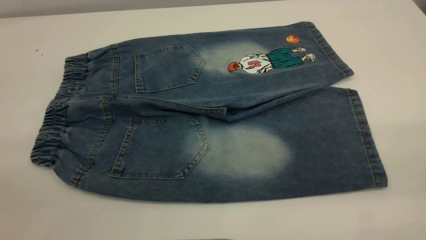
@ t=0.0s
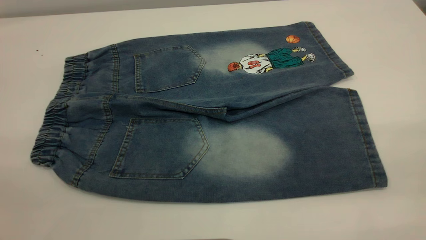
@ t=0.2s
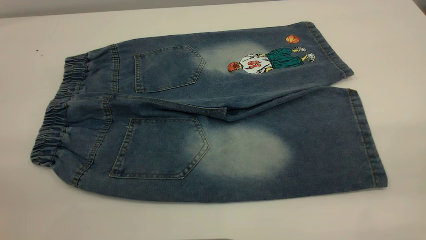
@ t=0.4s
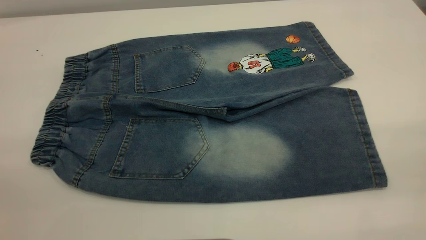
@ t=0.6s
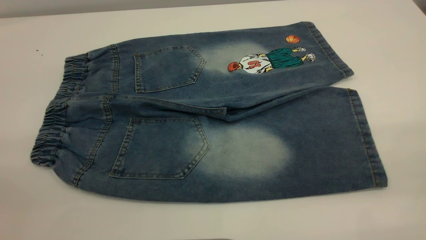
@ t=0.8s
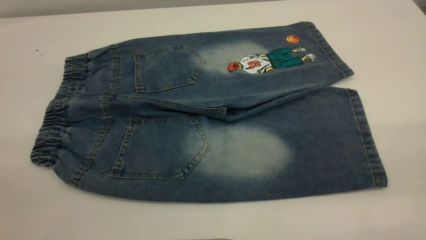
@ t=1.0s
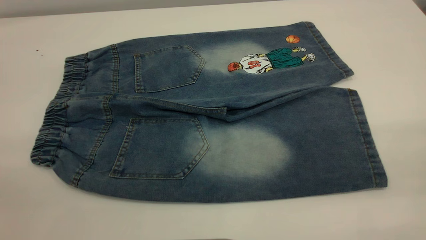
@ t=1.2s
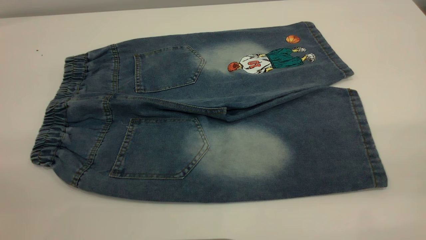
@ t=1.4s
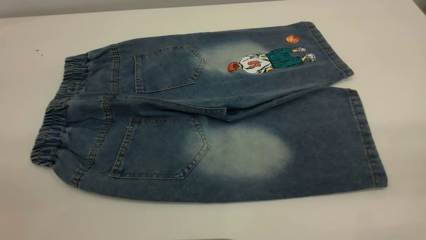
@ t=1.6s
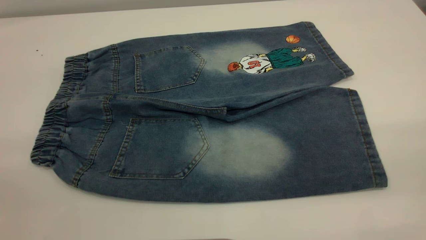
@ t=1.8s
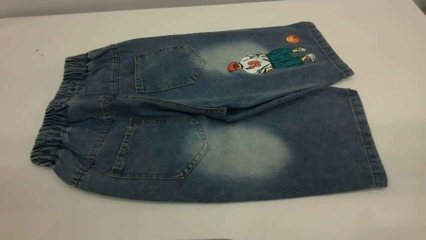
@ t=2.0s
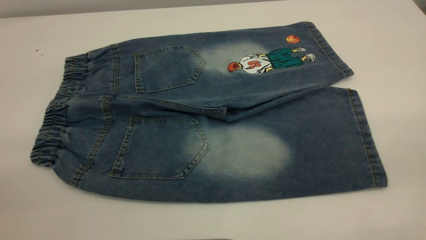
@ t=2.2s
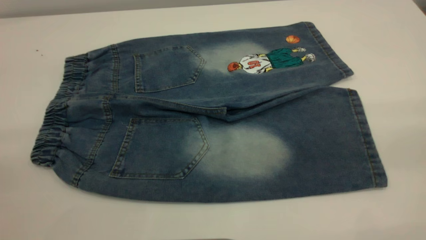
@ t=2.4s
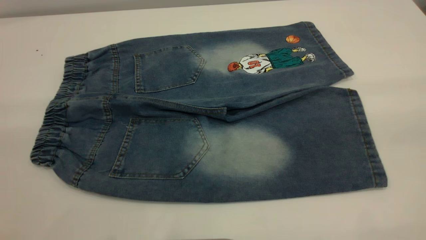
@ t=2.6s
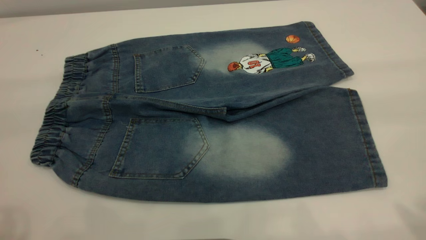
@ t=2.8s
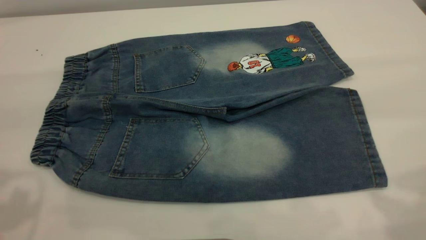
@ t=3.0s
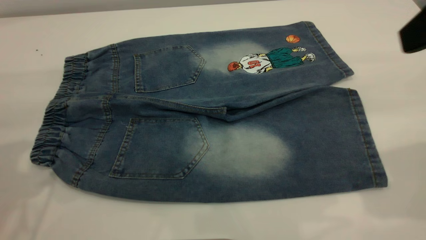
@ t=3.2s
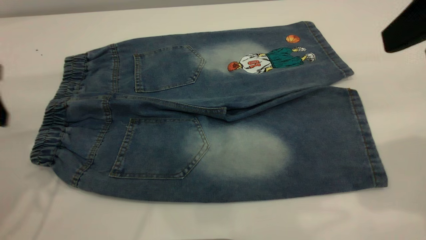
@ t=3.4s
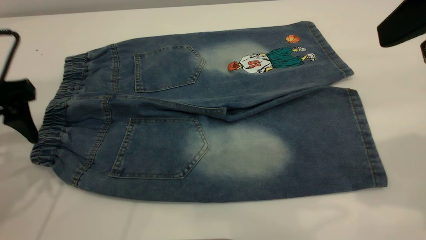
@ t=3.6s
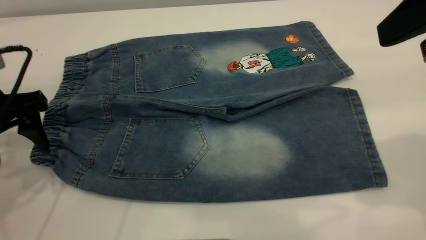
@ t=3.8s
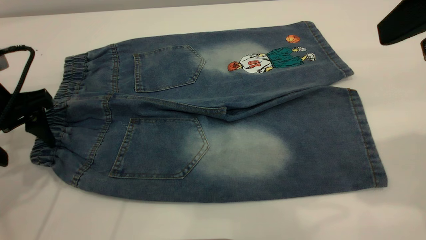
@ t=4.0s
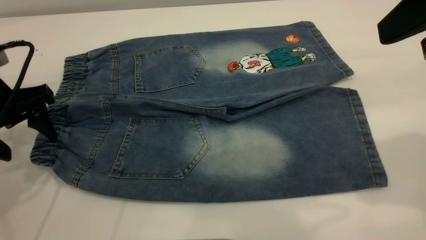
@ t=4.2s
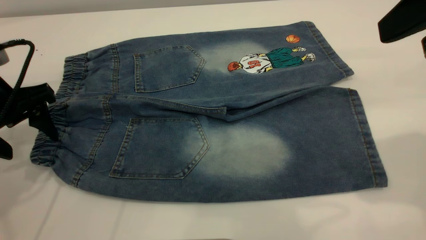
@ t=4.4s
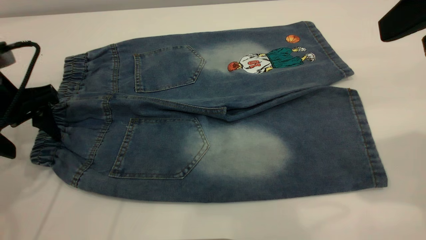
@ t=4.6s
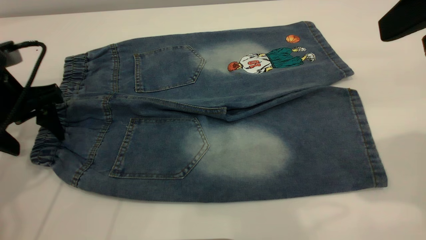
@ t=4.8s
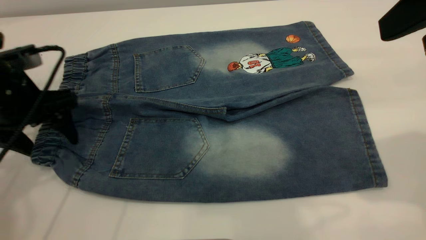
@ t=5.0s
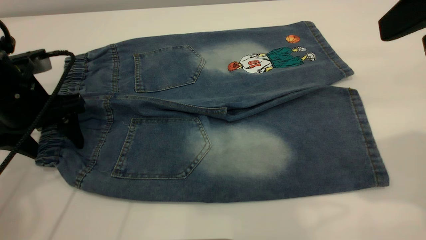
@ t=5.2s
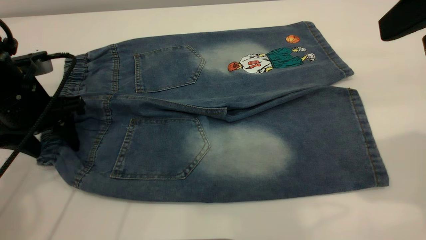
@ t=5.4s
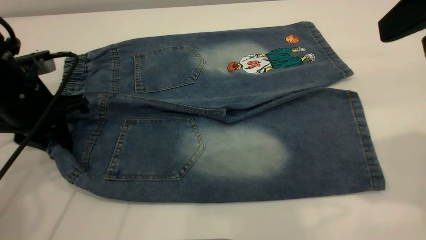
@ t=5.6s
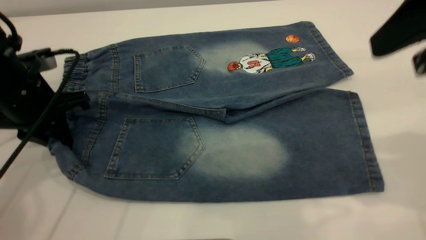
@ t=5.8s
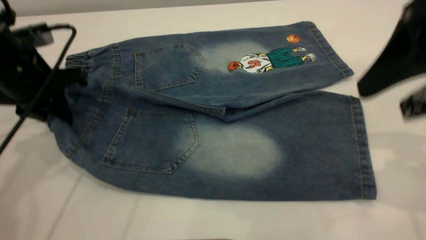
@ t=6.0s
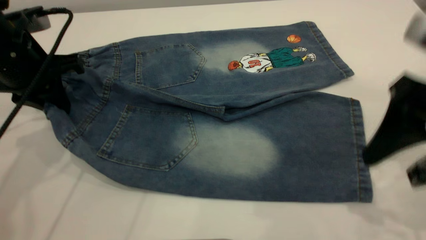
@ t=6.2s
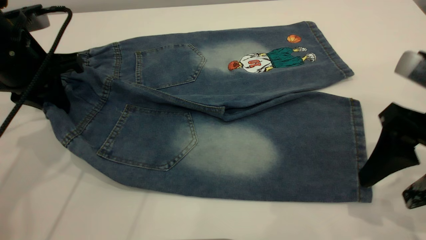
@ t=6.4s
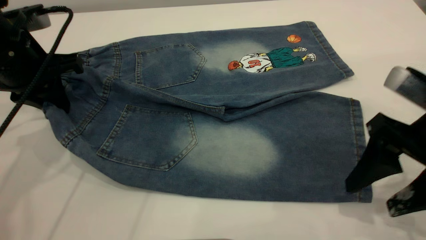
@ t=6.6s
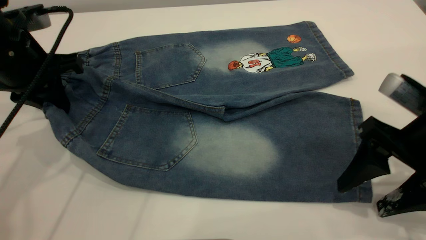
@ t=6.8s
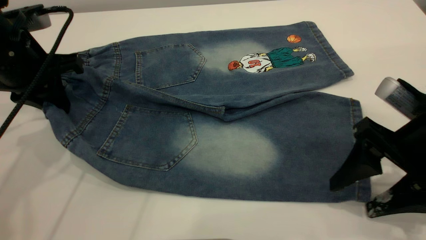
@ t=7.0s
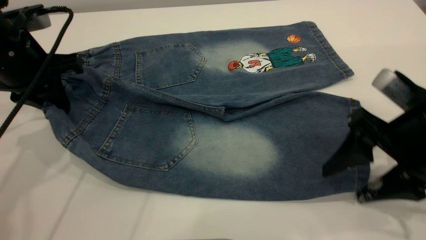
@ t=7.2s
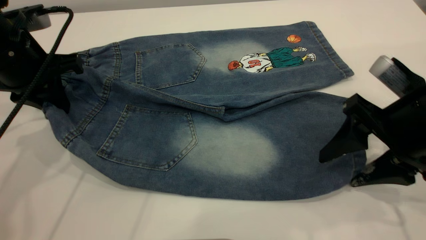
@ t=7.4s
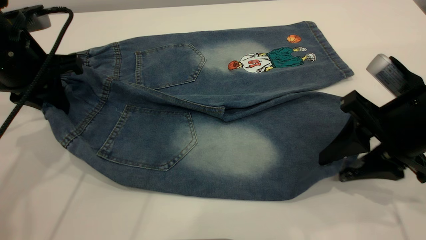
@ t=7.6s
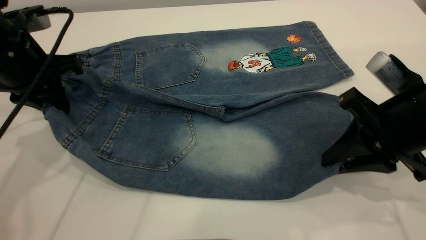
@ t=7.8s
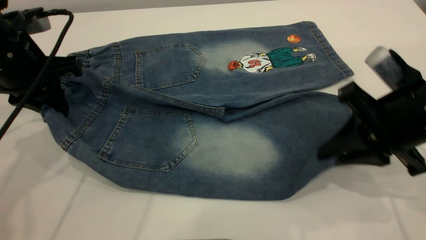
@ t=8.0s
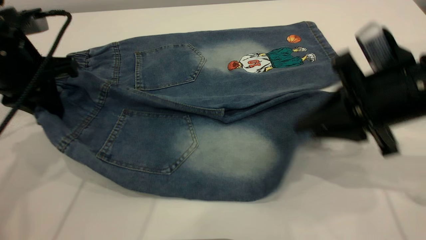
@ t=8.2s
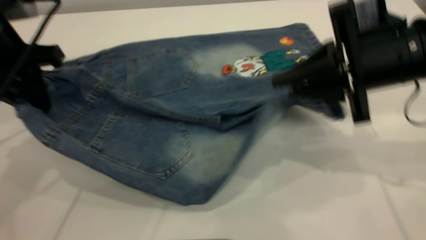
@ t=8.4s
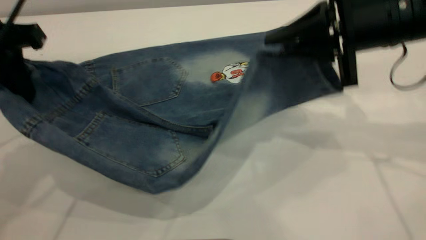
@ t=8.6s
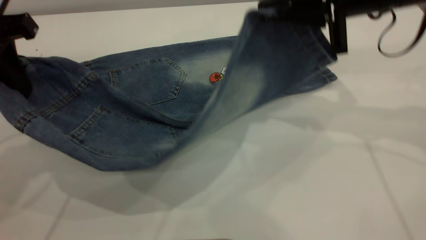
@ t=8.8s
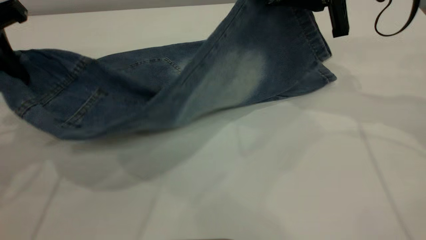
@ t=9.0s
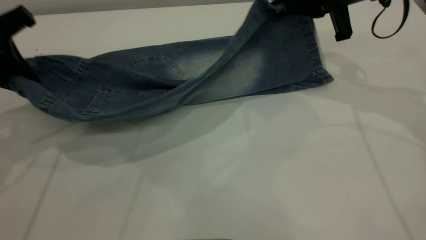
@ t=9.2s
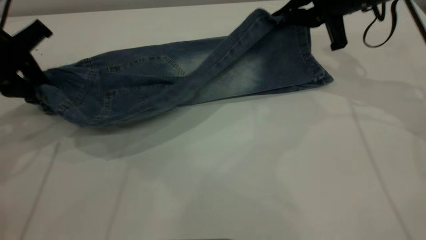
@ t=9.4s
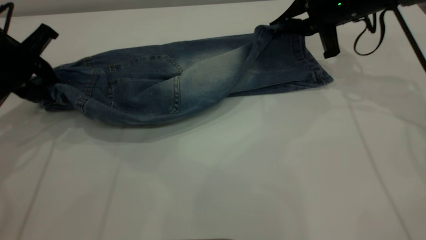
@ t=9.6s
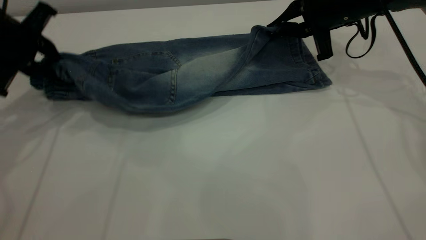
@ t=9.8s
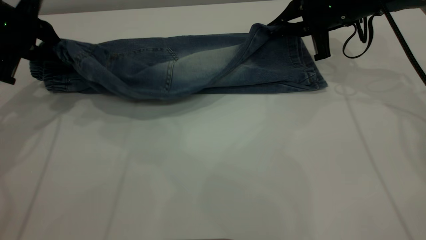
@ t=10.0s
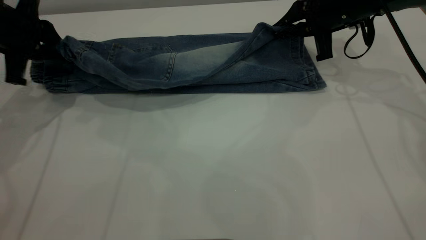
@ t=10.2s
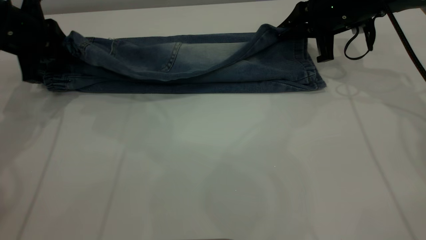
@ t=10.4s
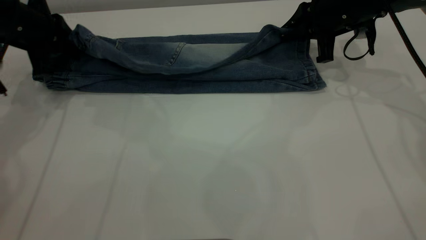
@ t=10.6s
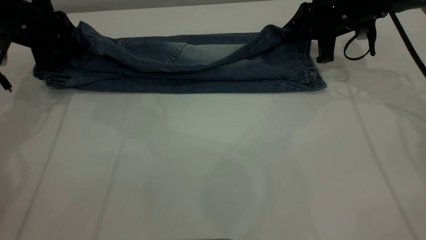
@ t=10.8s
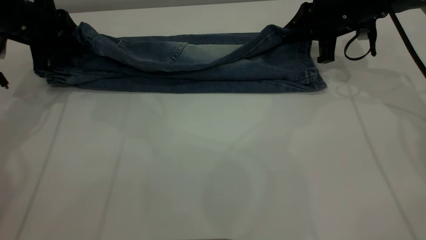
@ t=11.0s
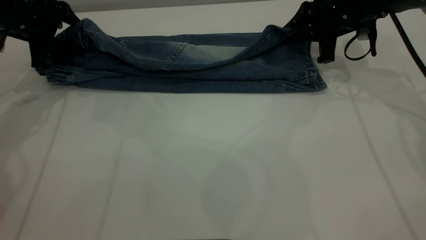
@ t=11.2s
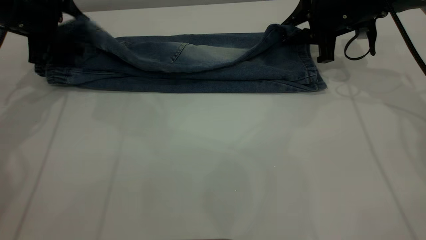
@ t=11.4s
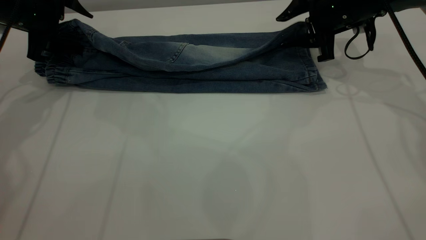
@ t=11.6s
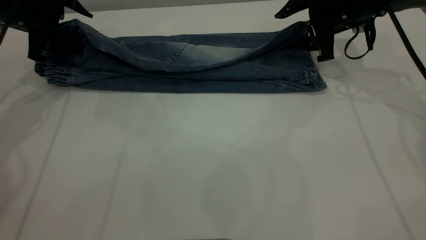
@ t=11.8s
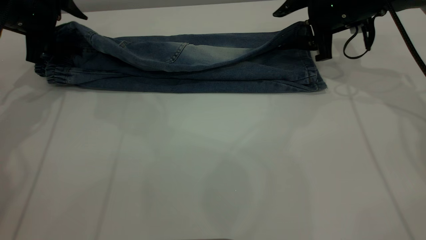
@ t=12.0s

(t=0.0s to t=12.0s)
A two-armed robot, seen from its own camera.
t=0.0s - t=1.6s: The two grippers keep their place.
t=3.0s - t=4.4s: The left gripper is displaced downward and forward by about 20 cm; the right gripper ends up about 5 cm from where it was.
t=4.4s - t=6.0s: The left gripper ends up approximately 5 cm from where it was, and closes up. Meanwhile the right gripper moves downward, roughly 5 cm.
t=6.0s - t=7.6s: The right gripper is displaced downward by about 10 cm, and closes its fingers.
t=7.6s - t=9.0s: The right gripper moves forward and upward, about 15 cm, and closes, while the left gripper heads upward, covering approximately 5 cm.
t=9.0s - t=10.4s: The right gripper goes some 10 cm downward and forward. Meanwhile the left gripper goes approximately 10 cm forward and downward.
t=10.4s - t=12.0s: The left gripper opens up; the right gripper opens.

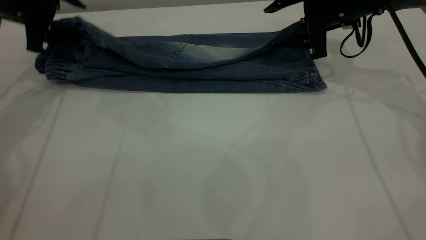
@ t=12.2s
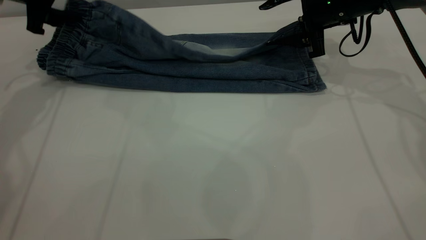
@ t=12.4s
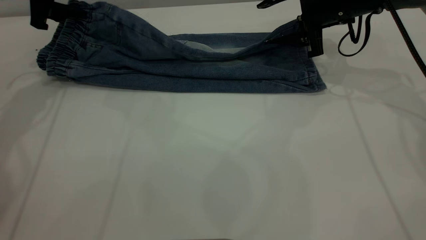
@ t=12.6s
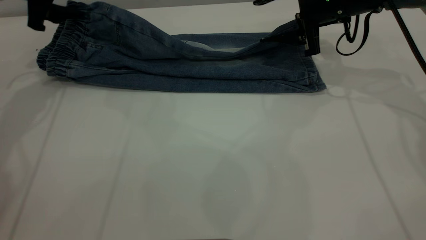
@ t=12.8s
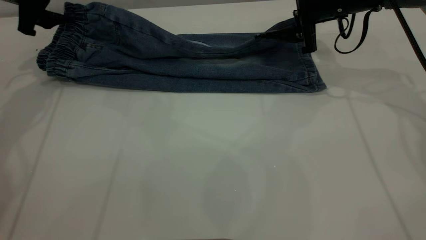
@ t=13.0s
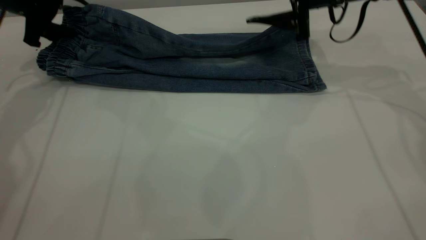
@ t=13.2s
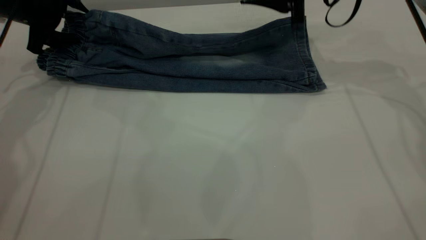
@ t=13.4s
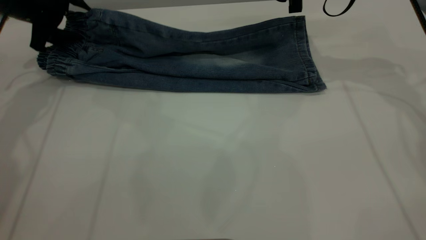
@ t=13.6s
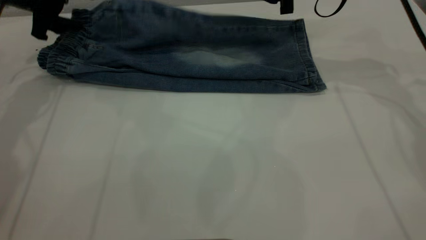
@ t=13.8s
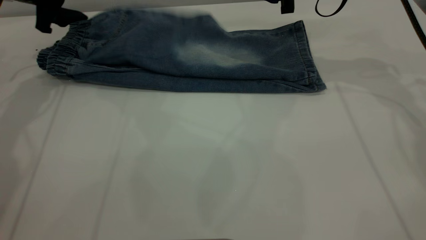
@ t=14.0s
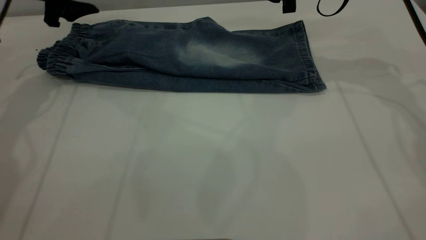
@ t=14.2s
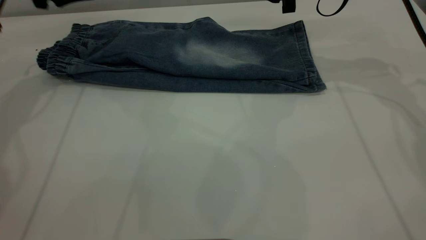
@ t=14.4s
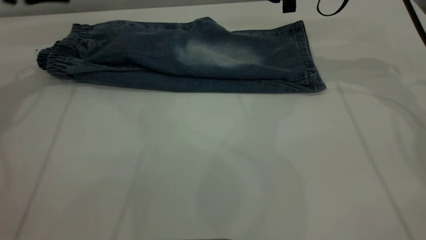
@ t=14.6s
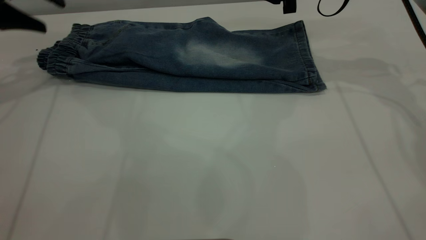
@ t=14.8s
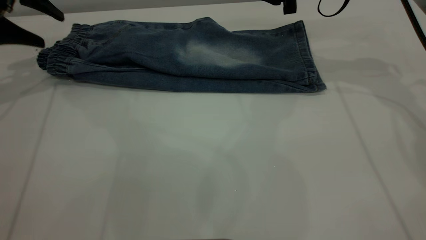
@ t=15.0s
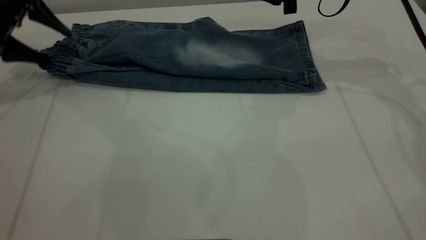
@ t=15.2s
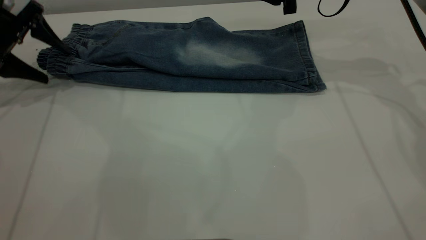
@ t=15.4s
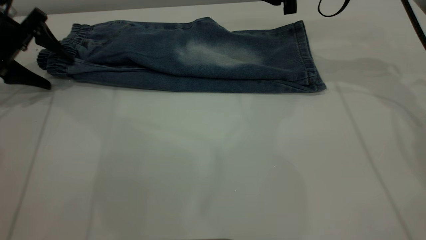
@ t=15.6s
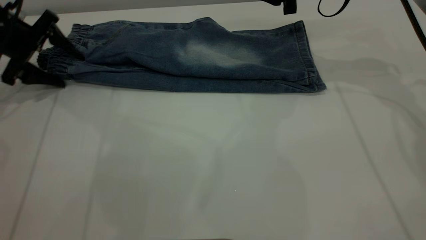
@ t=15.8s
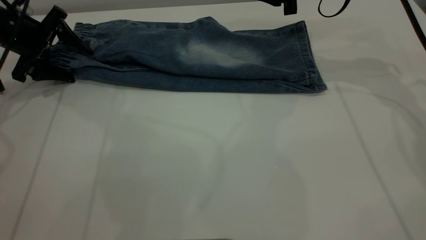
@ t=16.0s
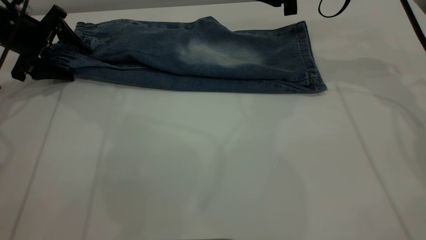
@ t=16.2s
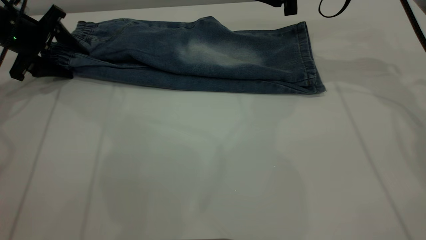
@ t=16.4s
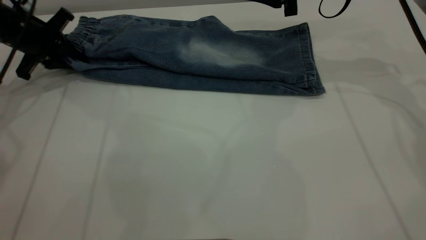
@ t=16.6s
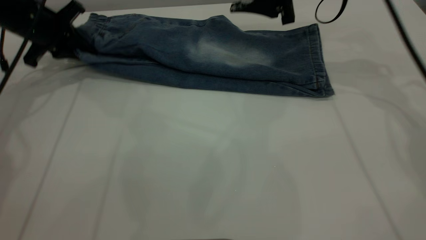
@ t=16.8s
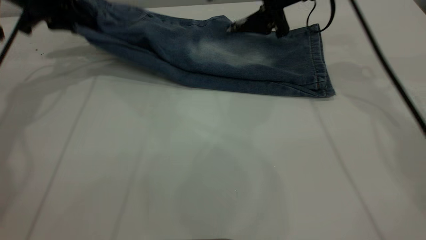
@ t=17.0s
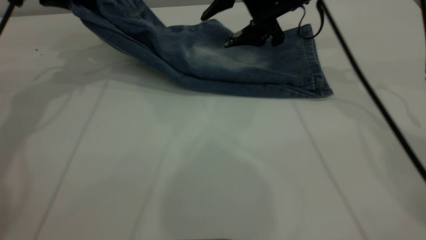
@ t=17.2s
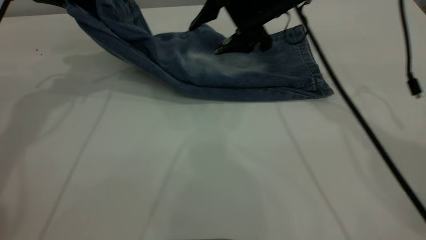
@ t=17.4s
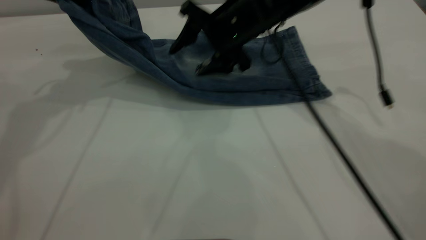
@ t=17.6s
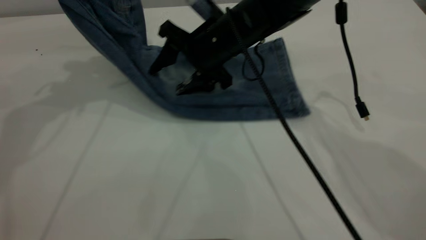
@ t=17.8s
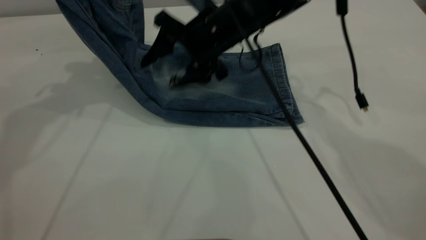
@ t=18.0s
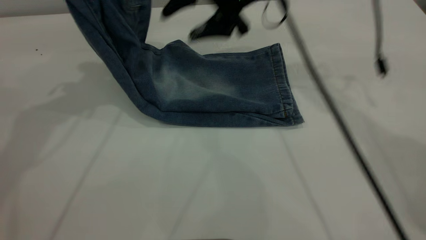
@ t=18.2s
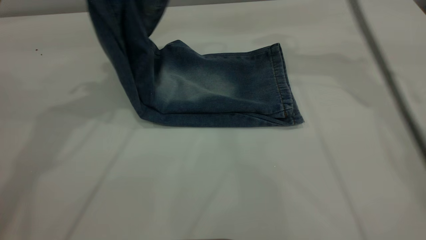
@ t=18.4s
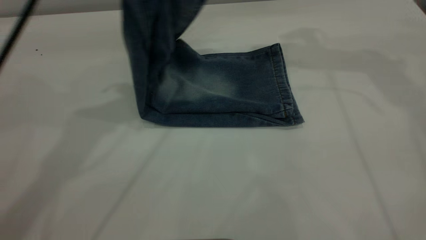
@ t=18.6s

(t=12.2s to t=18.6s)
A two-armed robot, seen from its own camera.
Step, t=12.2s - t=14.4s: Fold the bottom of the pants upward.
t=12.2s - t=13.8s: The right gripper heads upward, covering about 5 cm.
t=13.8s - t=15.4s: The left gripper moves to the left and backward, some 5 cm, and travels upward and back again, about 5 cm each way.
t=15.4s - t=17.0s: The left gripper moves to the right and upward, roughly 10 cm, and closes up.
t=17.0s - t=18.6s: The left gripper moves to the right, upward and backward, about 20 cm, while the right gripper heads upward, covering approximately 15 cm.
